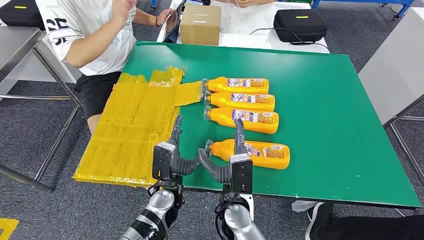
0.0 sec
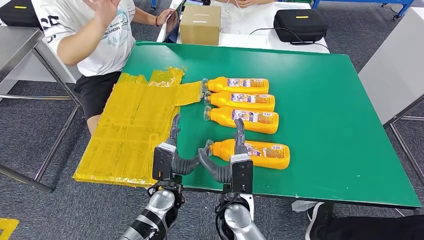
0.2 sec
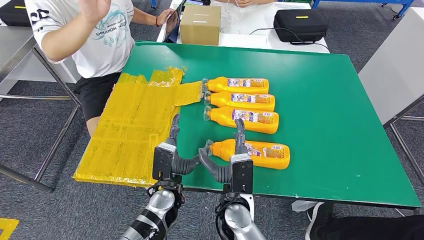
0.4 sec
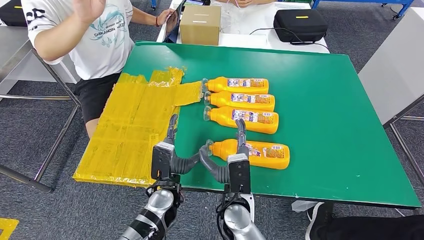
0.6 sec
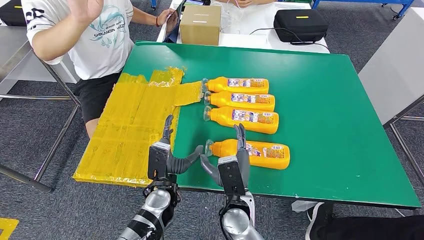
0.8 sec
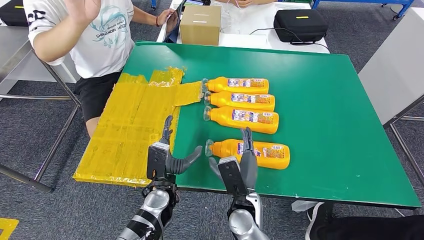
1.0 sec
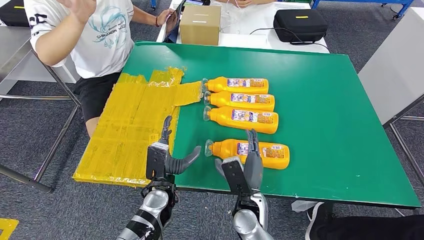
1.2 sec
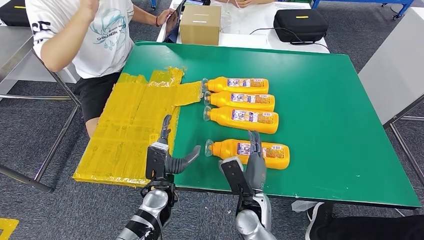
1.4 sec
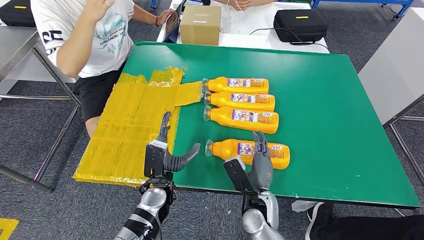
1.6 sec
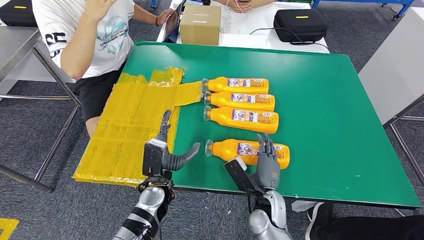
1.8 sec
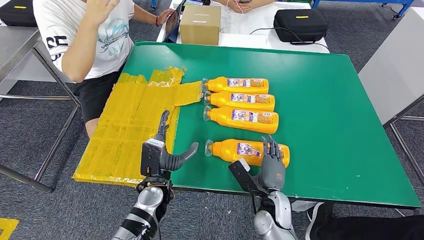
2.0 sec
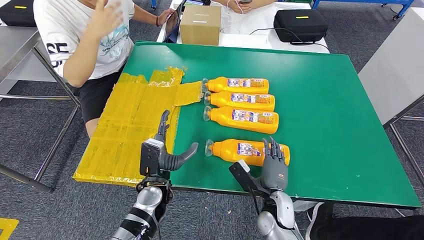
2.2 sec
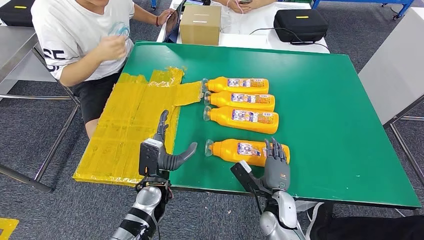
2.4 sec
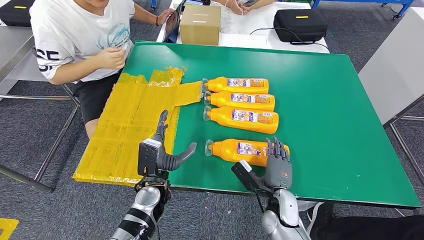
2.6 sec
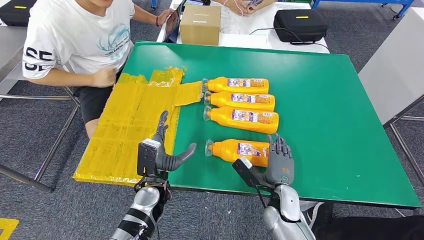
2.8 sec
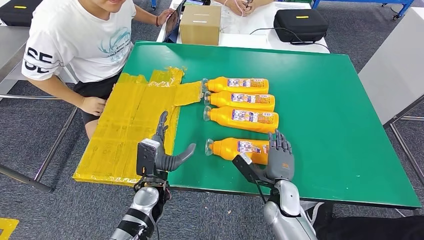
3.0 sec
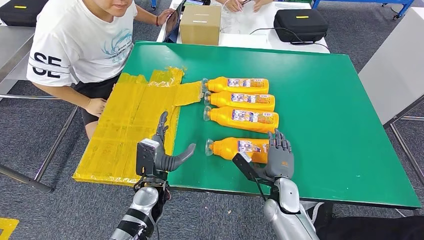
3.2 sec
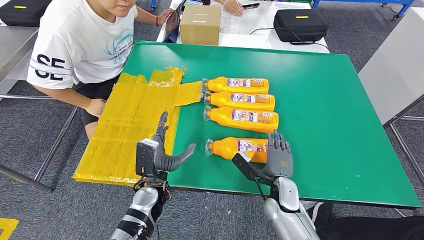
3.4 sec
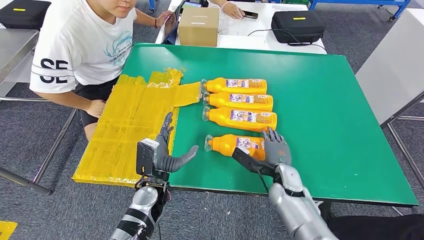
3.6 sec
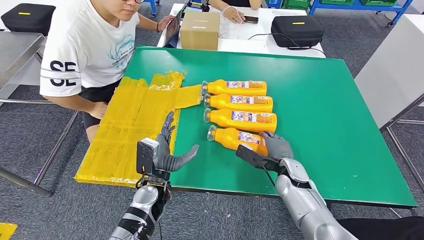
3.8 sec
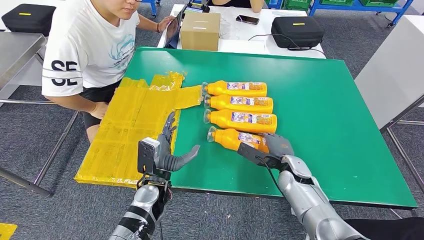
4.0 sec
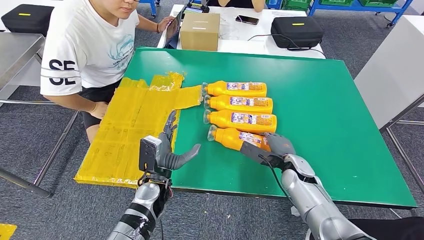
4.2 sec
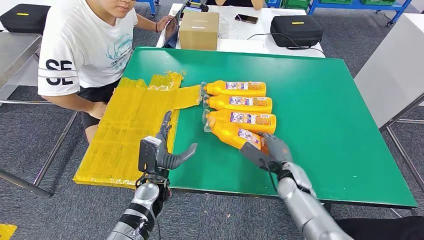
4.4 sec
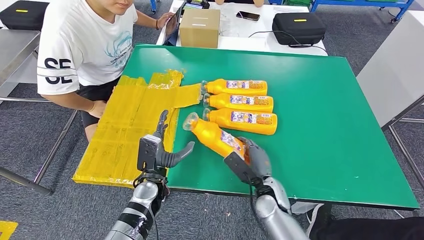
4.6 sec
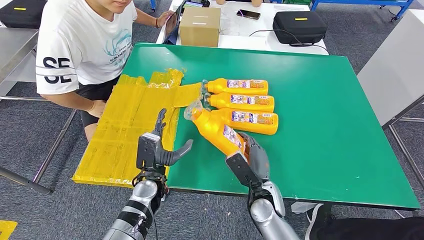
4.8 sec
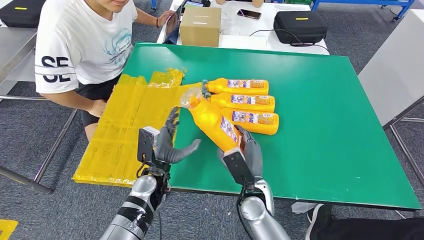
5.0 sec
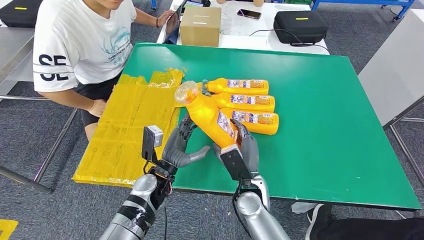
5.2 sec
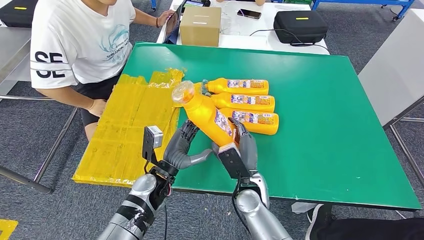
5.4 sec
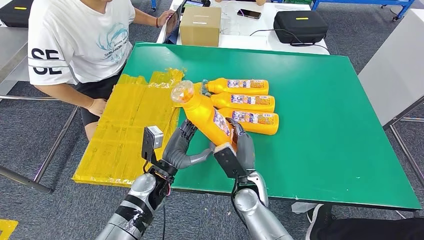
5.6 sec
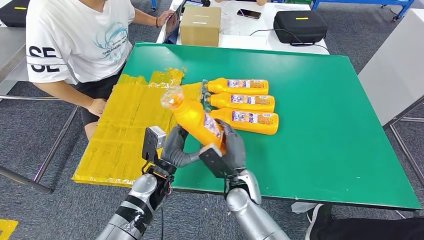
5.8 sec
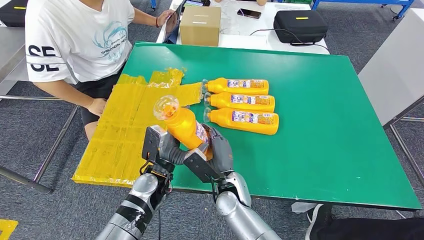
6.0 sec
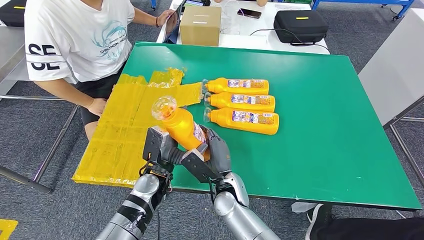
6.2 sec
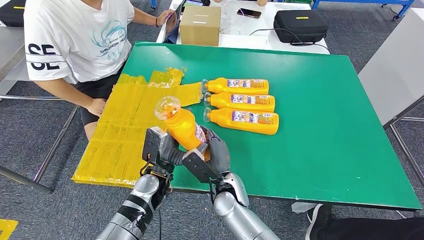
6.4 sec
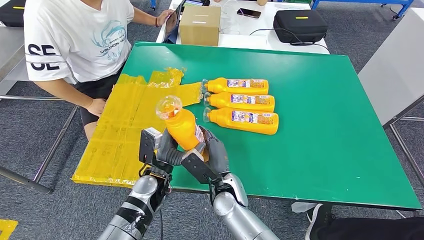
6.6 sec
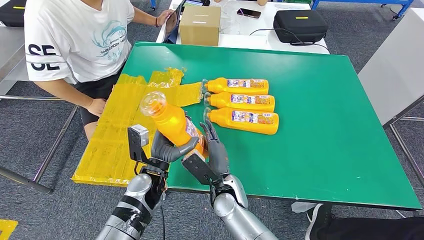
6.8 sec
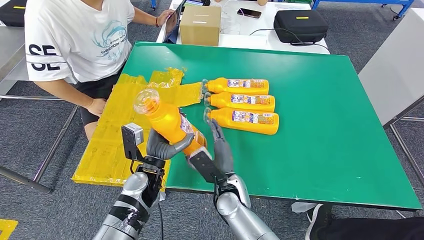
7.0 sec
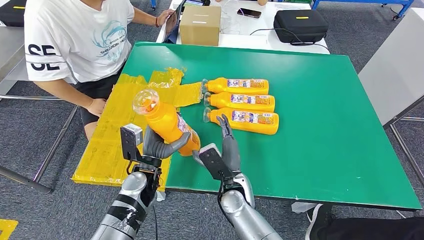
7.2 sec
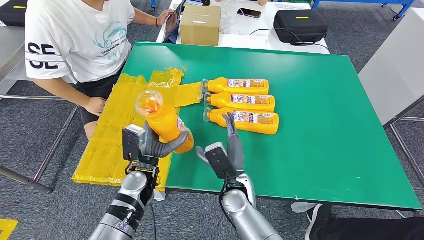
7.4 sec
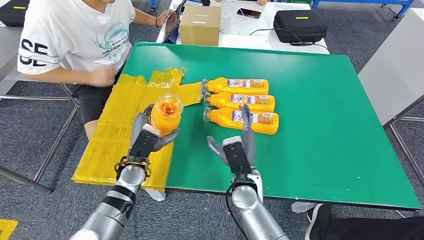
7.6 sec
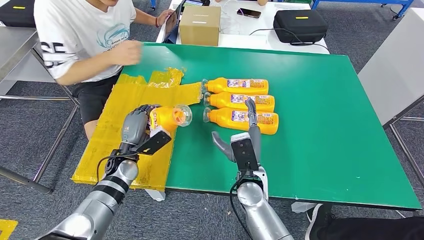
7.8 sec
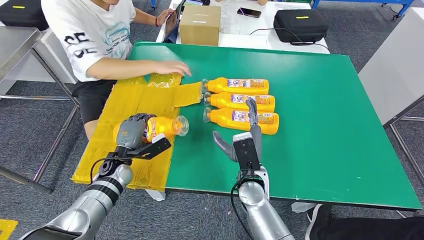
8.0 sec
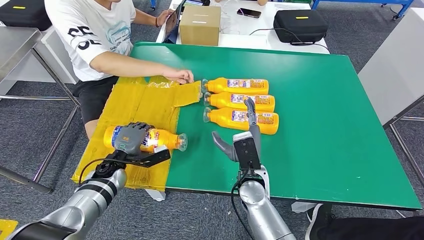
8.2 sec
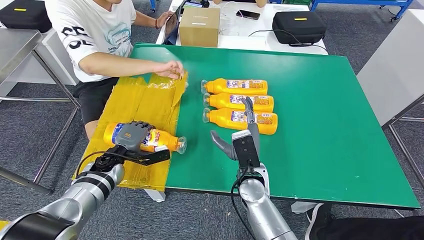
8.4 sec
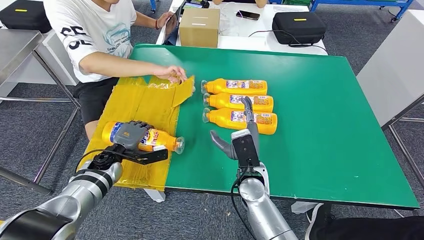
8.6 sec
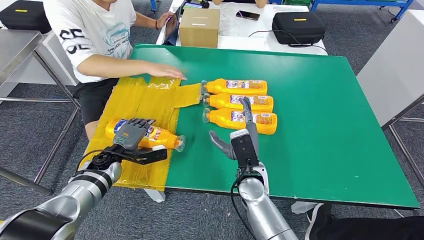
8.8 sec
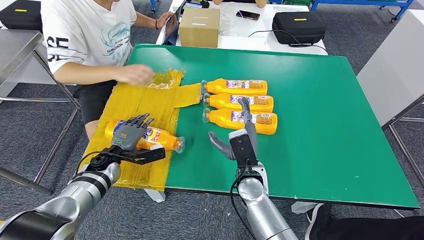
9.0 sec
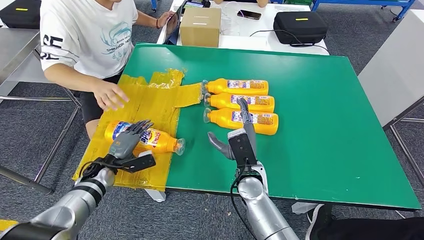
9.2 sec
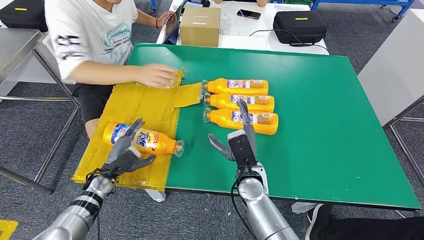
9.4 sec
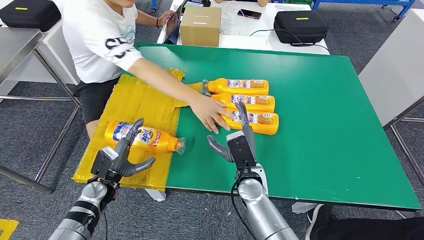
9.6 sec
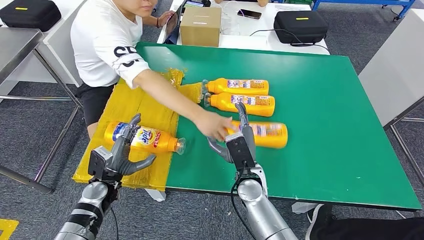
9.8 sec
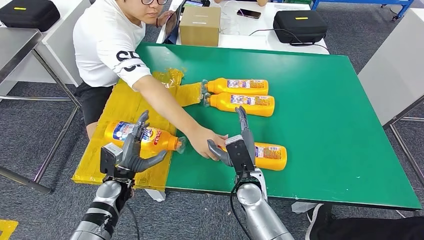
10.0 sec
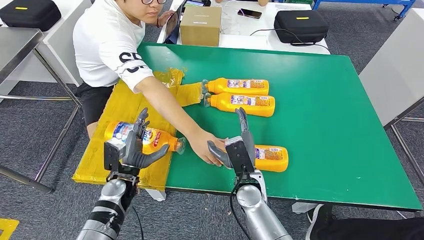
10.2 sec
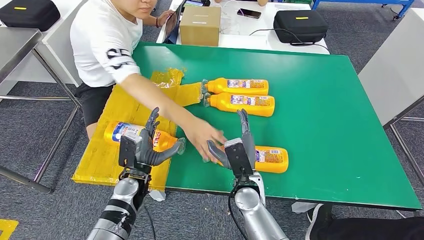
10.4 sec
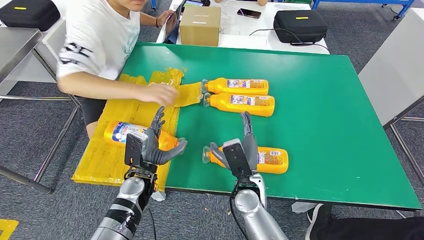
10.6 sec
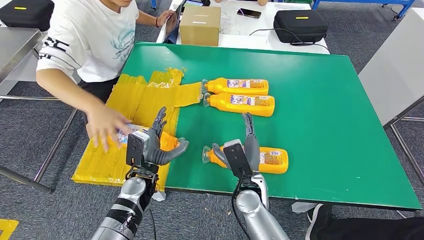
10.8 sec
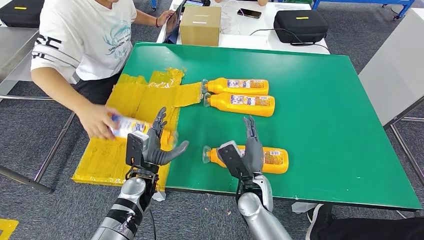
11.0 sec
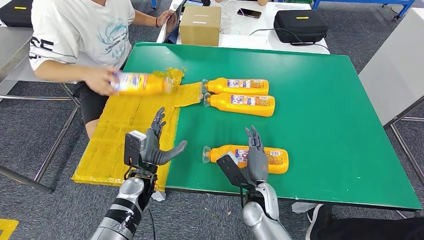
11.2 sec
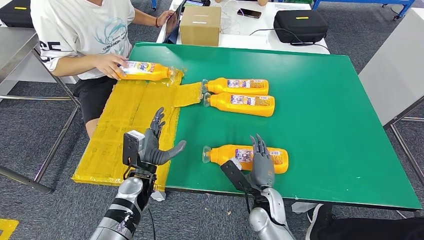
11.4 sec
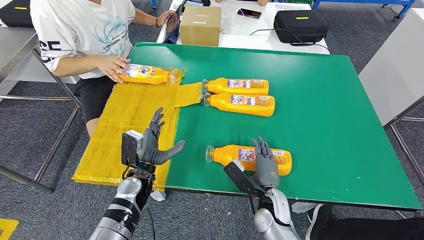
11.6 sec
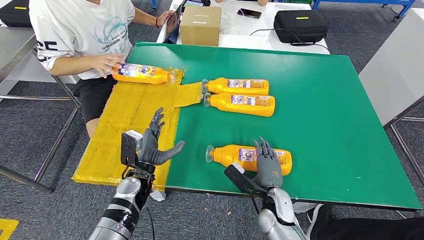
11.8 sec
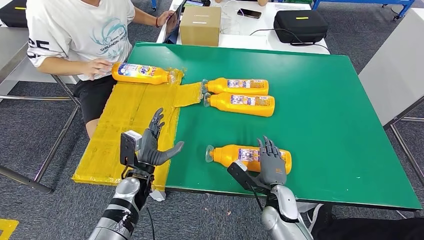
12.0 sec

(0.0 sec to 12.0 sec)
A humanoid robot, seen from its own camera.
Step, 0.0 sec - 6.6 sec: Take the bottle from the table.
Step, 6.8 sec - 9.6 sec: Flip the bottle to face forward.
1.6 sec - 3.0 sec: The right hand shifts roughly 5 cm to the right.
6.0 sec - 7.6 sec: The left hand goes about 5 cm to the left.
10.4 sec - 12.0 sec: The right hand travels to the right and downward by roughly 10 cm.

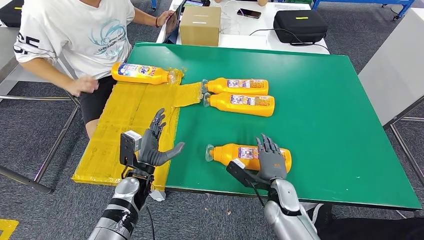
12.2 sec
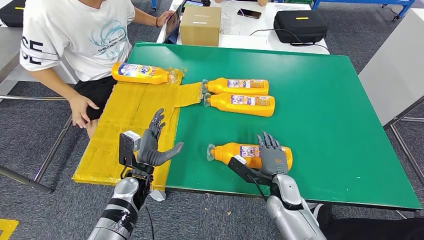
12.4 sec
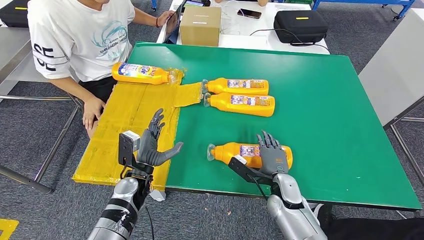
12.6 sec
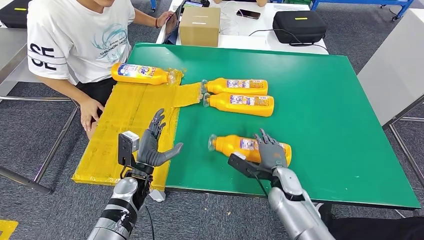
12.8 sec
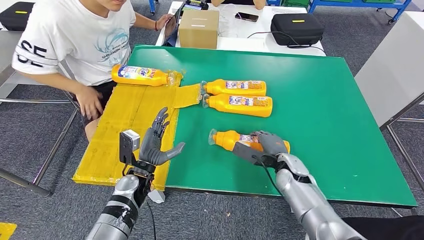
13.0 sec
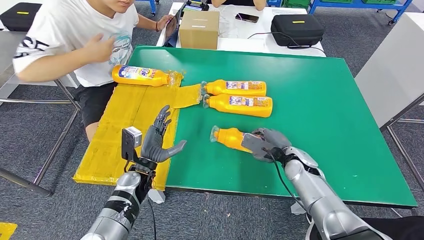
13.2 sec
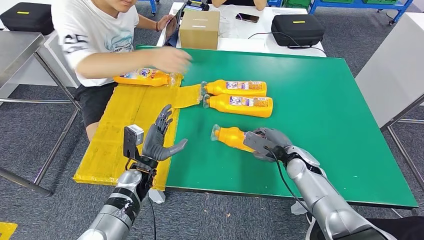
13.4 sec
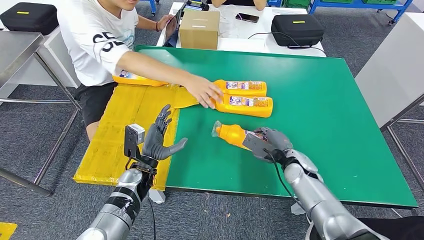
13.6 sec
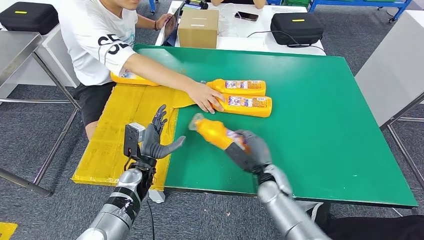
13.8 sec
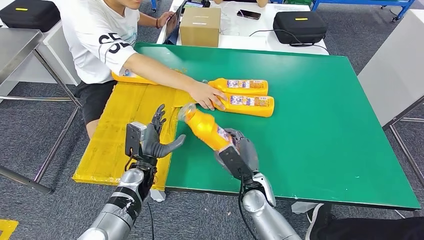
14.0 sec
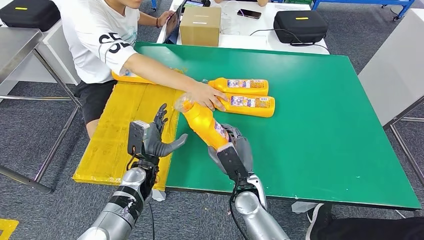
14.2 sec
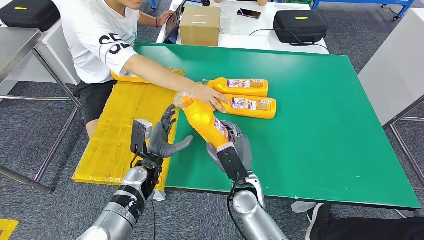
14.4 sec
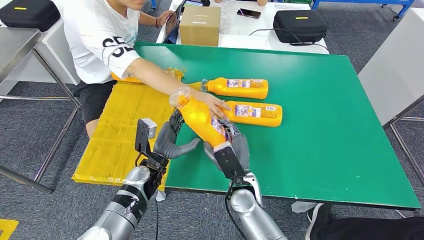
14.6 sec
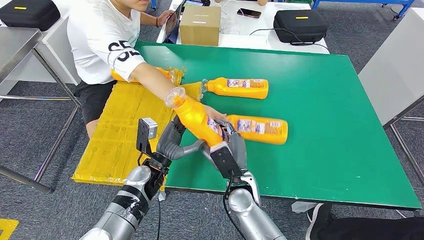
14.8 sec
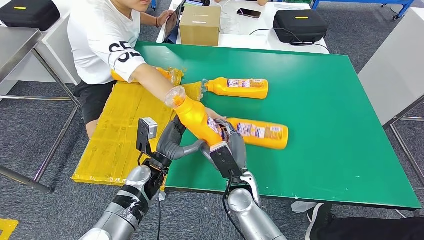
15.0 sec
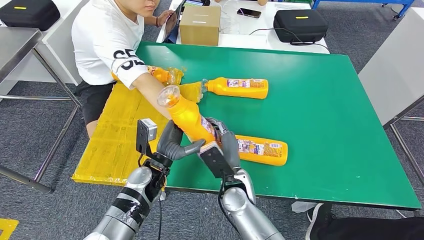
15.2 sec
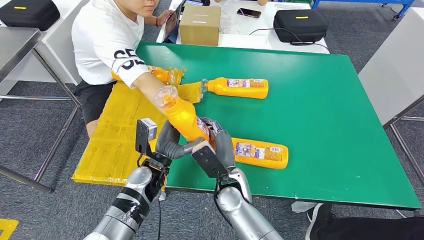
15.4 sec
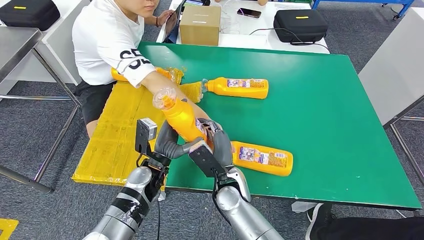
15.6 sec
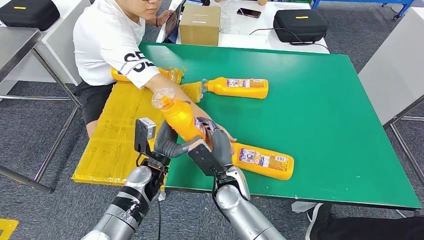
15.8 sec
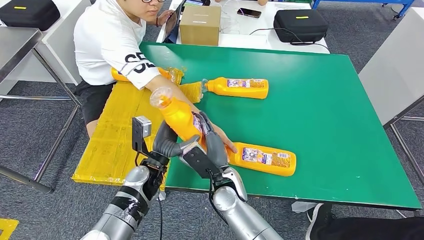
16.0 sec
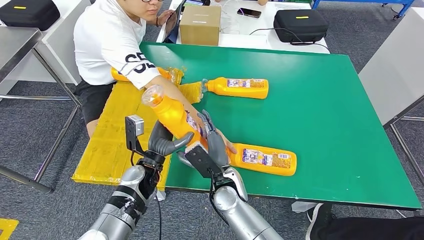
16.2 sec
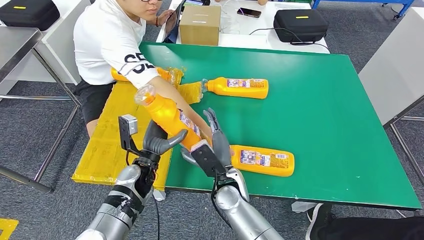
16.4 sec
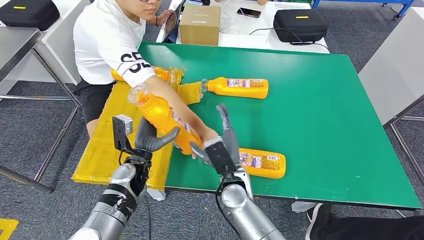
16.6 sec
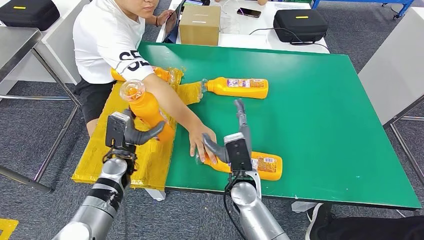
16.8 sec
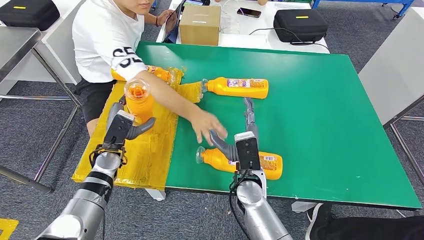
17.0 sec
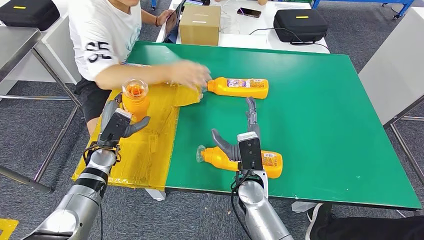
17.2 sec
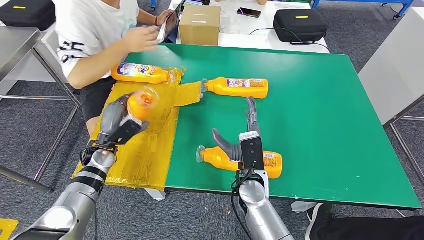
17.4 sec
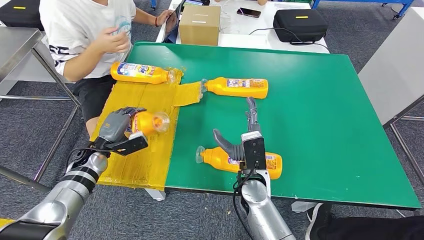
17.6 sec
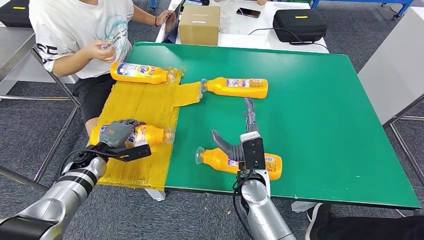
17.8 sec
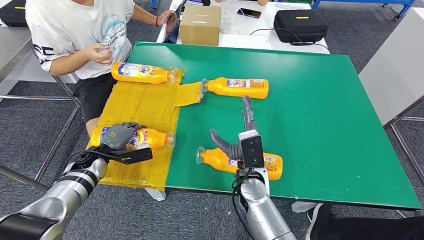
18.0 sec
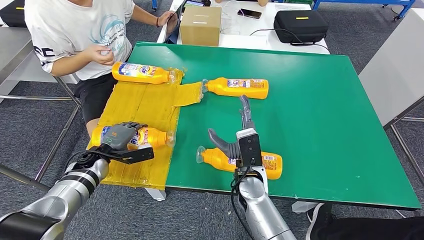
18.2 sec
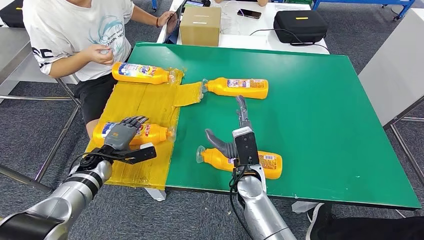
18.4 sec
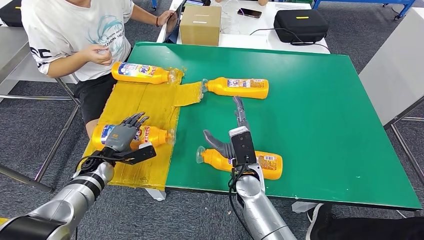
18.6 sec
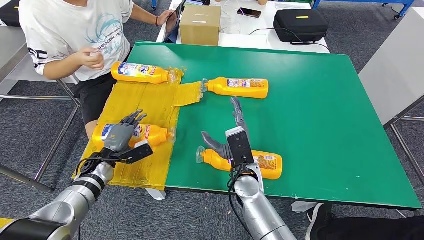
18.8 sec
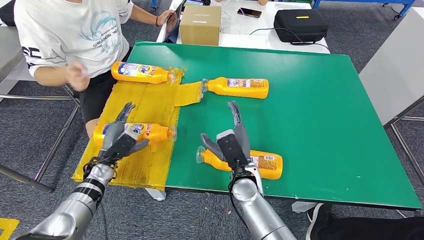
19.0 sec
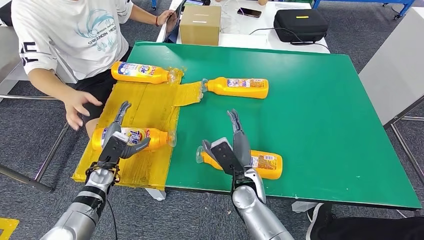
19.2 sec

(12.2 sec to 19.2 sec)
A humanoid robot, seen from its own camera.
Step, 12.2 sec - 14.6 sec: Pick up the bottle from the table.
Step, 14.8 sec - 18.2 sec: Flip the bottle to face forward.
15.0 sec - 16.4 sec: The hands make only small movements.
